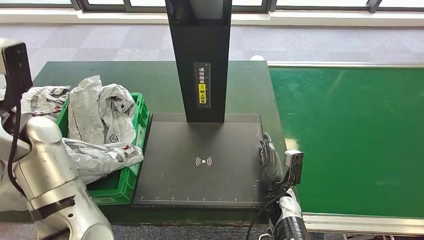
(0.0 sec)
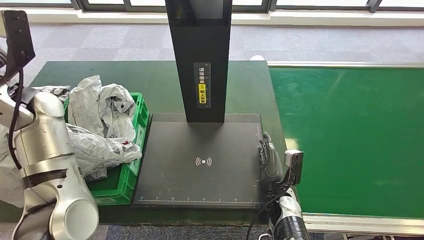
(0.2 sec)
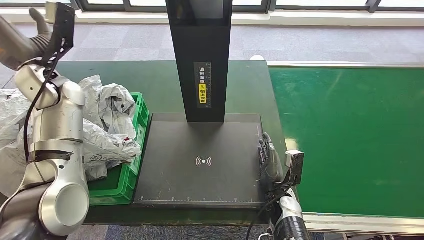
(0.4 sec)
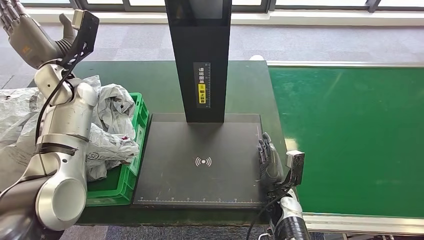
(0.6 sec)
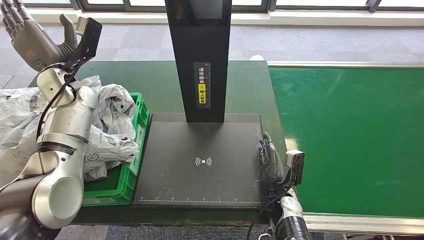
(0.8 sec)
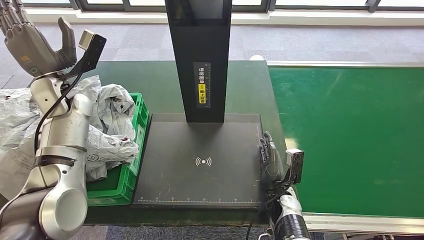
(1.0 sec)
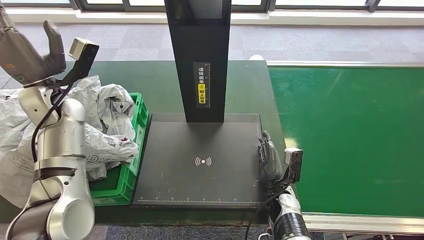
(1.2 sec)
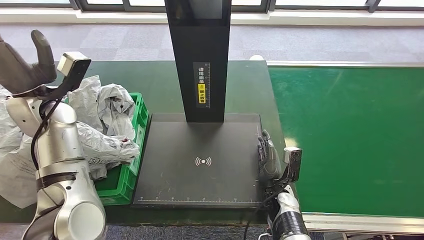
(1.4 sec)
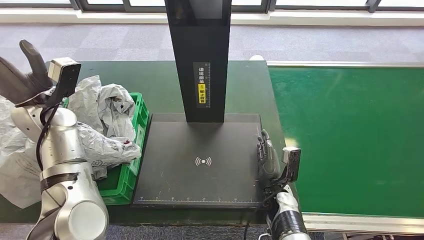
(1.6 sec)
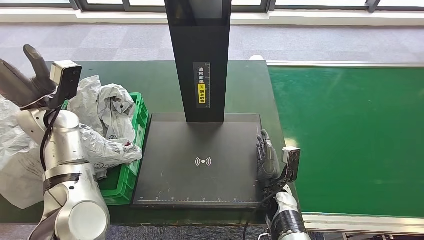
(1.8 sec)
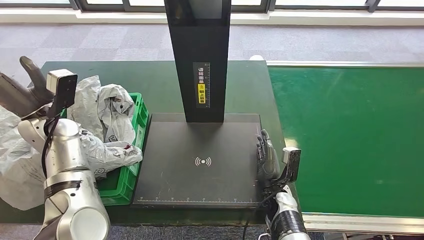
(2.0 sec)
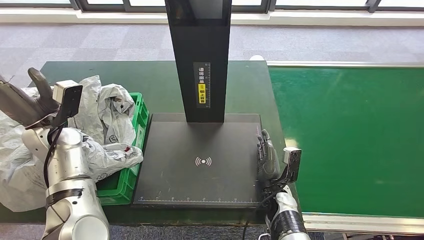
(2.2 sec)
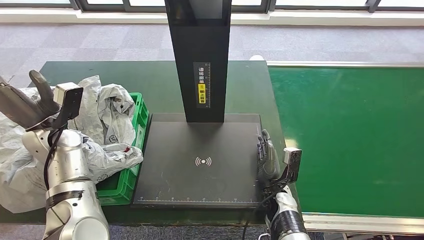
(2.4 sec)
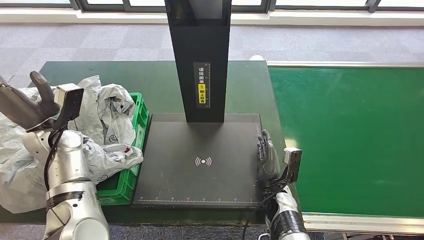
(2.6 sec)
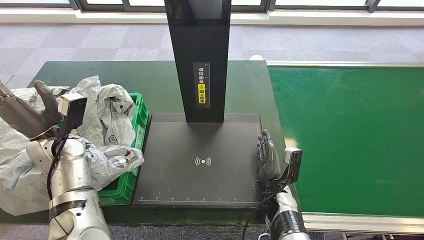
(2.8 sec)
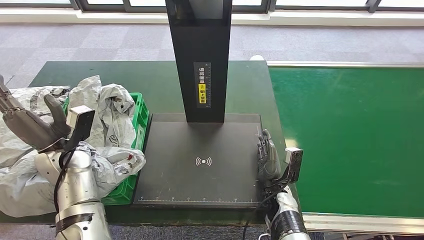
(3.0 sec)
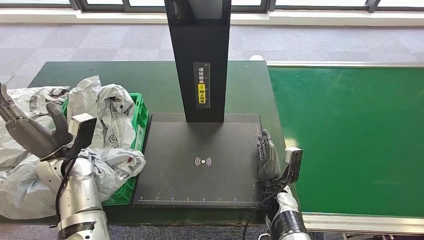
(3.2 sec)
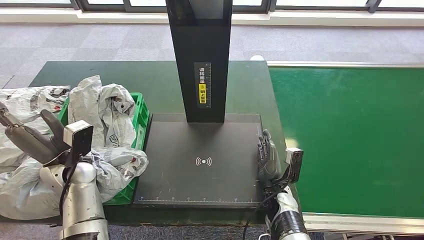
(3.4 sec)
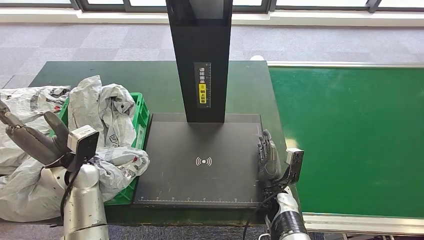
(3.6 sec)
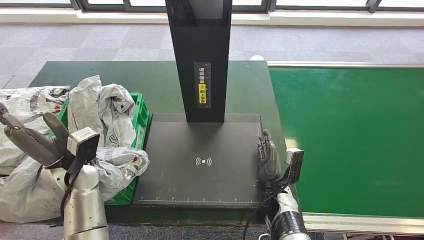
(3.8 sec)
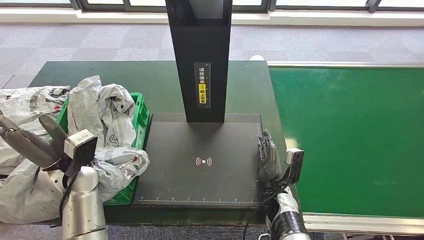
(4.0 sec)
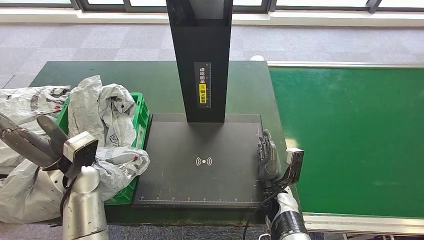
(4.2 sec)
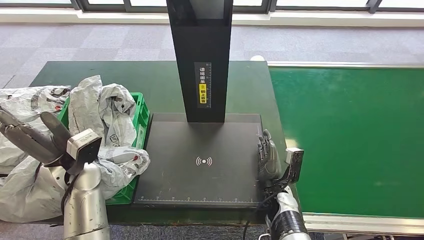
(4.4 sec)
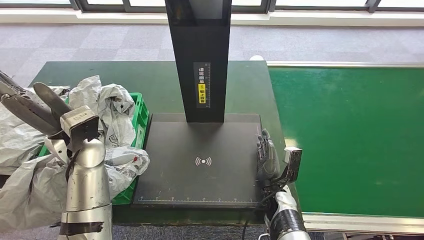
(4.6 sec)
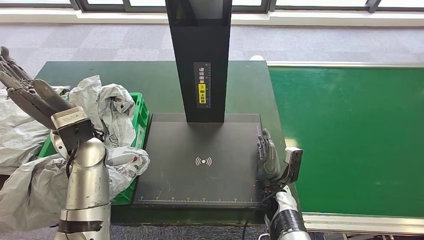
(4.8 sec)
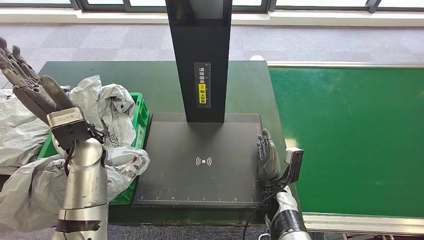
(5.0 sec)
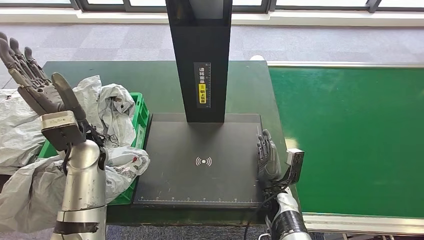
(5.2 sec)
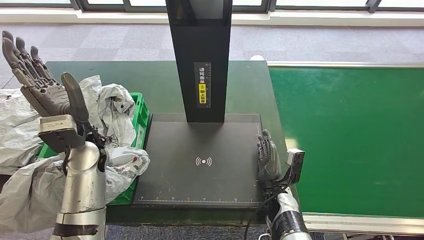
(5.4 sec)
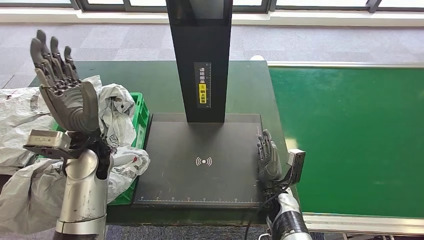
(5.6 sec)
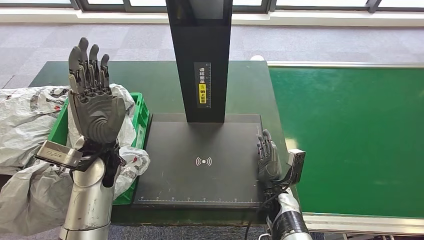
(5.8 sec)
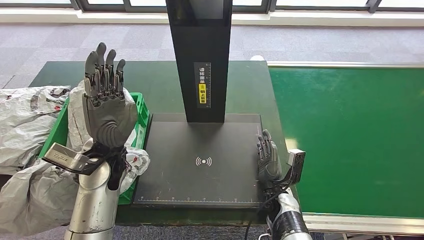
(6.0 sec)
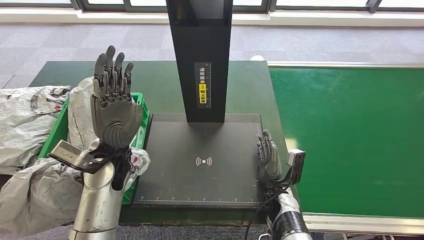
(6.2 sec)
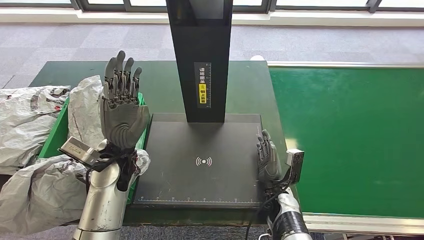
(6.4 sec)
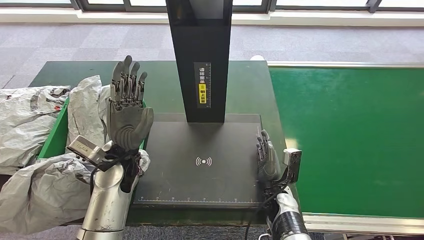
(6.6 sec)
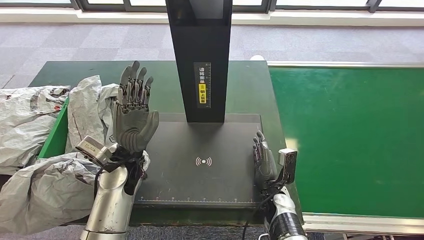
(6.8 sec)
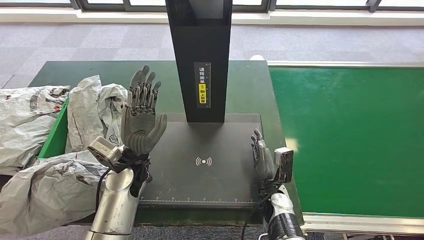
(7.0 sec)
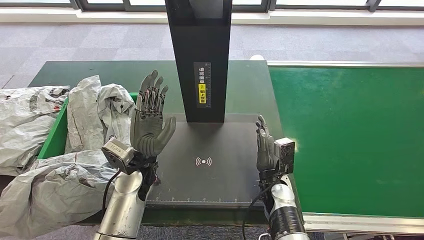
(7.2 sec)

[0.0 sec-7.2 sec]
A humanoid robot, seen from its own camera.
Step, 0.0 sec to 7.2 sec: Place the parcel into the delivery box.
0.0 sec to 1.4 sec: The left hand travels forward by about 5 cm.
1.4 sec to 2.8 sec: The left hand moves downward, about 10 cm.
2.8 sec to 4.4 sec: The left hand moves to the right and backward, approximately 10 cm.
4.4 sec to 5.8 sec: The left hand shifts some 5 cm to the right.
